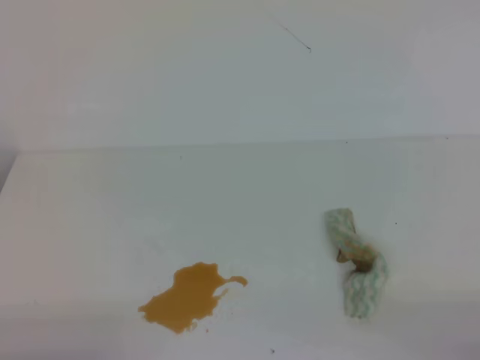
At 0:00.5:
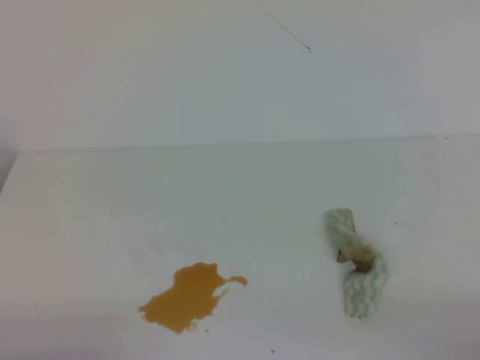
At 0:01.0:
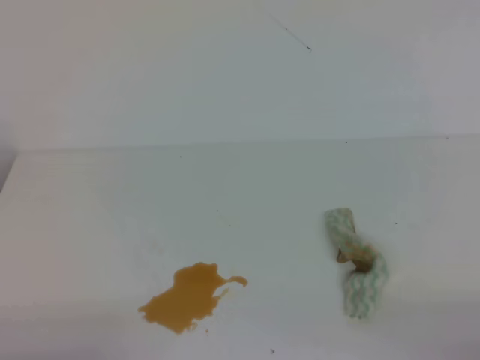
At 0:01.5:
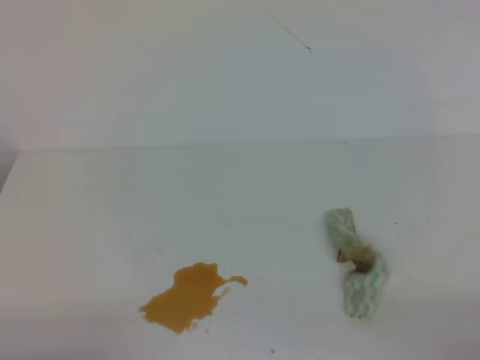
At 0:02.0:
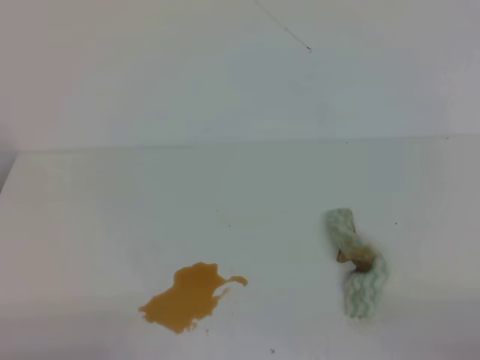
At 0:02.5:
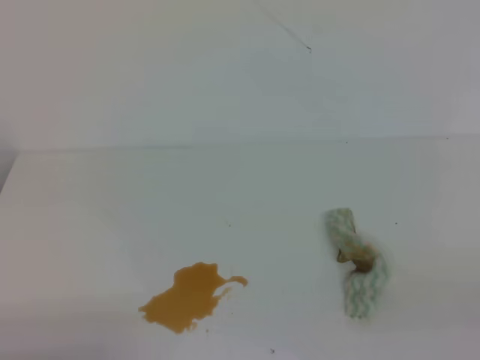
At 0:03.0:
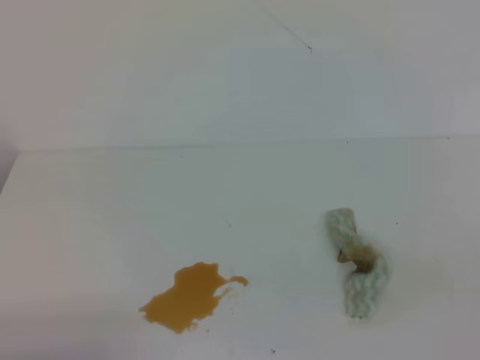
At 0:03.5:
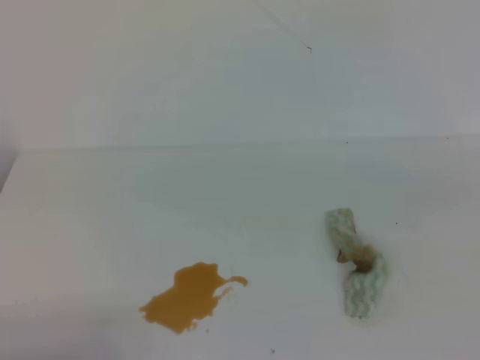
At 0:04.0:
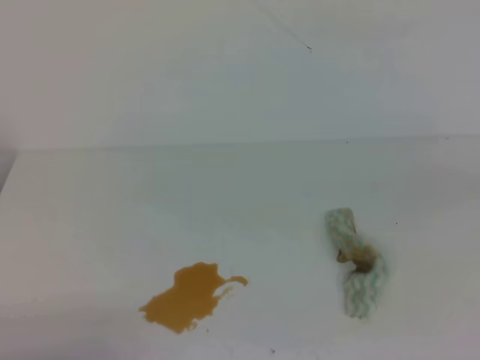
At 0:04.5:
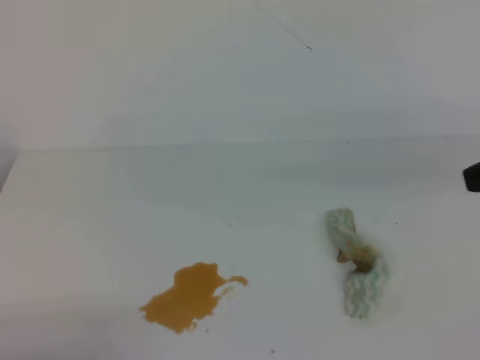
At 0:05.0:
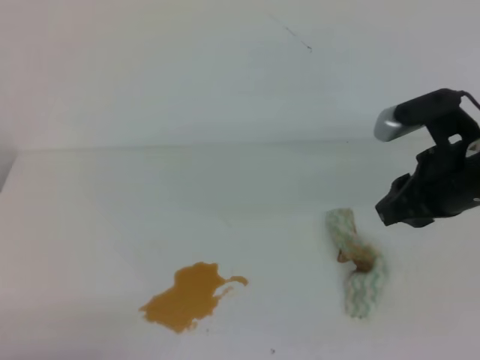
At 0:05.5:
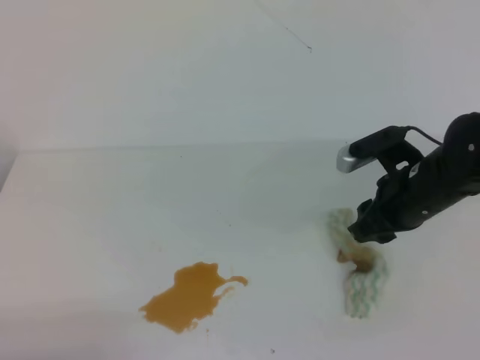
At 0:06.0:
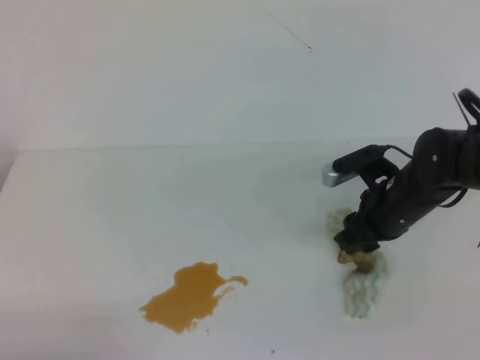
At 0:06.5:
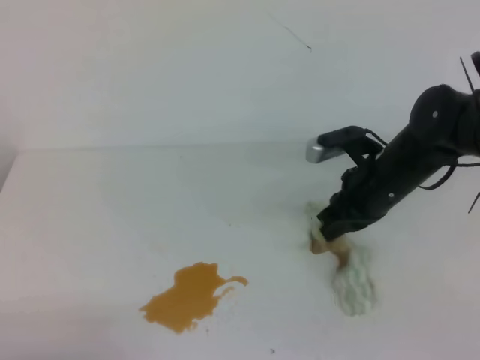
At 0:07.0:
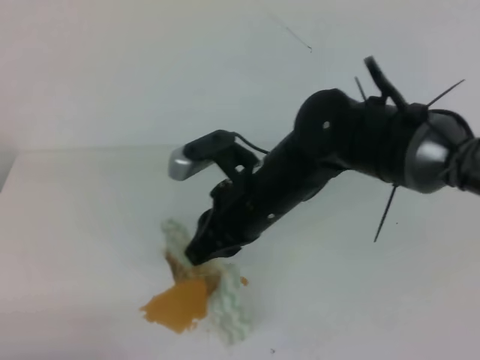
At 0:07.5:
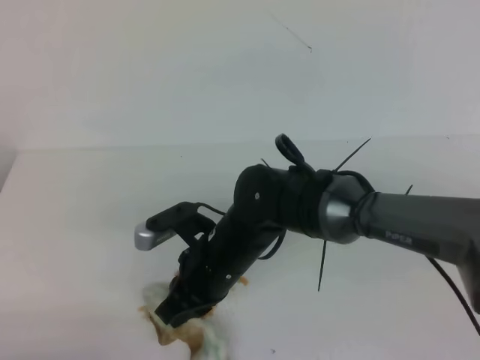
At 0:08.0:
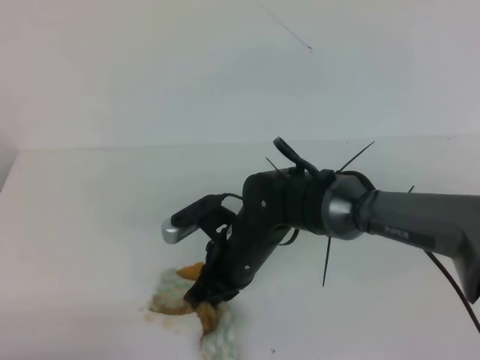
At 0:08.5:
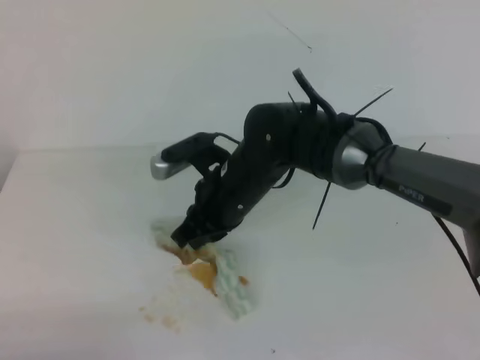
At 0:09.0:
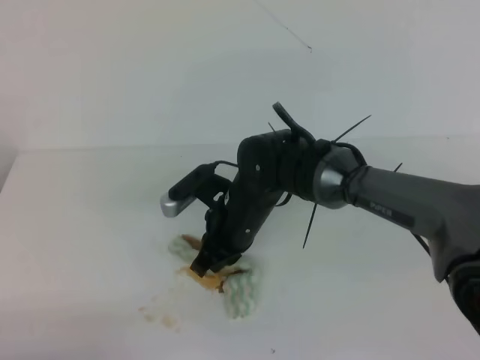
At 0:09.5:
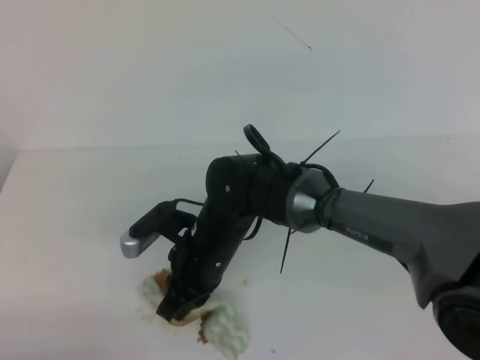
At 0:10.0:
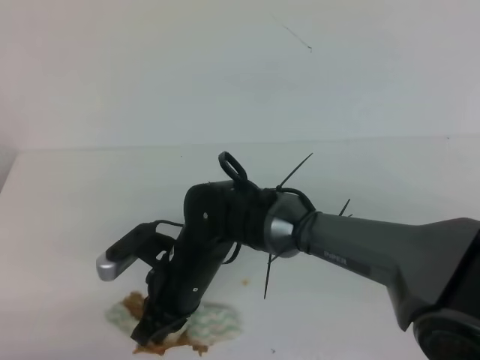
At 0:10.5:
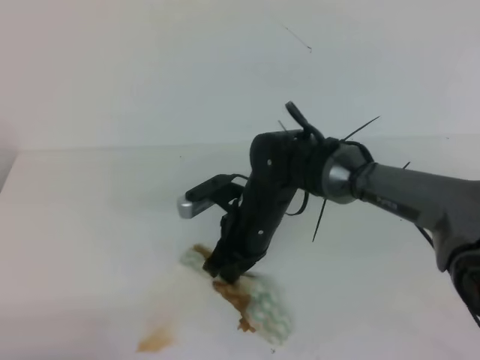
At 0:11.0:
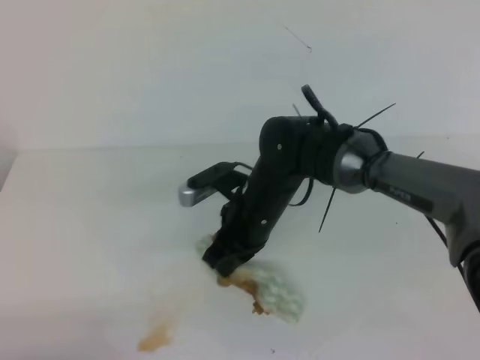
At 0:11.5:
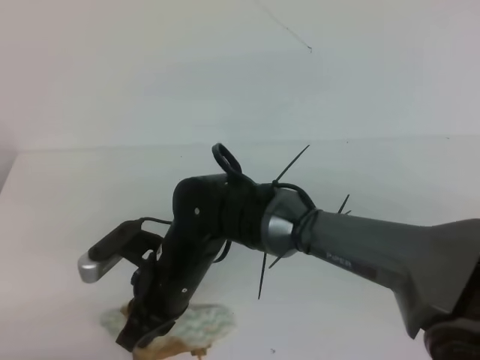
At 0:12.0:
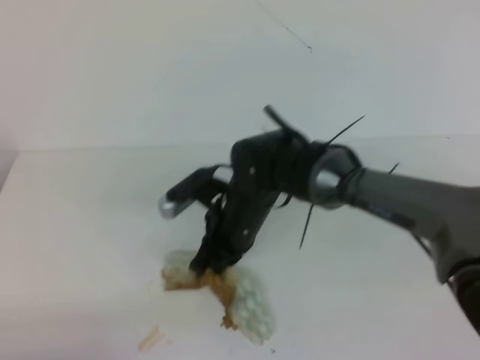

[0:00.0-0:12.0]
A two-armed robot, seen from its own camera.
0:00.0 to 0:02.0: Both grippers stay put.
0:04.0 to 0:06.0: The right gripper is displaced forward, downward and to the left by approximately 35 cm, and opens up.
0:06.0 to 0:08.0: The right gripper goes approximately 20 cm to the left, and closes its fingers.
0:08.0 to 0:10.0: The right gripper travels to the left by about 5 cm.
0:10.0 to 0:12.0: The right gripper swings left and right, some 10 cm each way, with 2 reversals.

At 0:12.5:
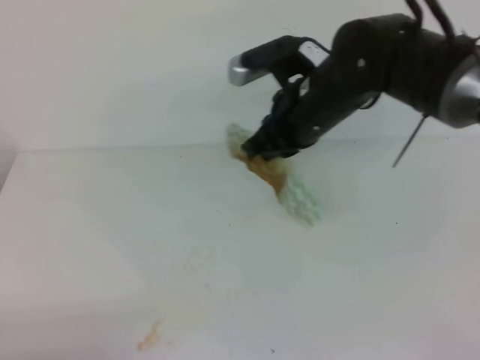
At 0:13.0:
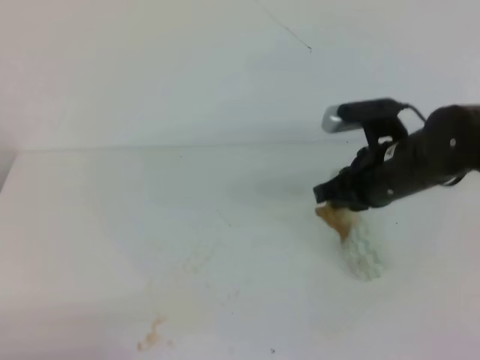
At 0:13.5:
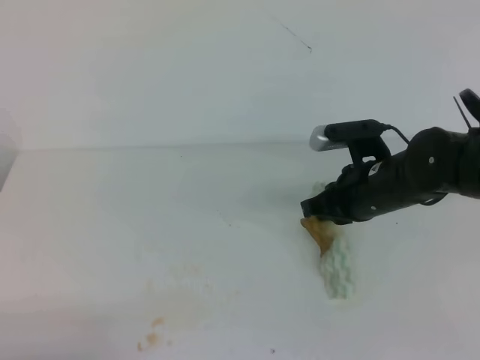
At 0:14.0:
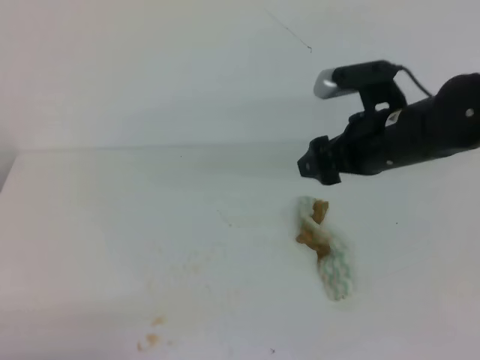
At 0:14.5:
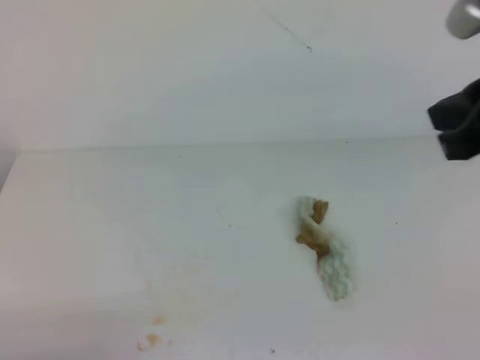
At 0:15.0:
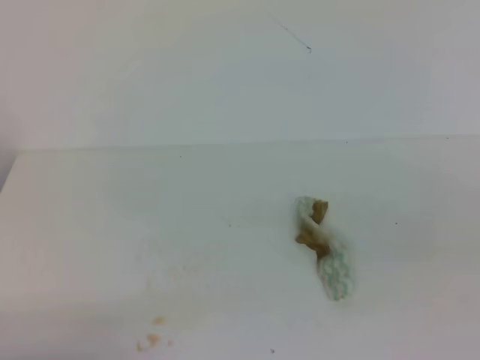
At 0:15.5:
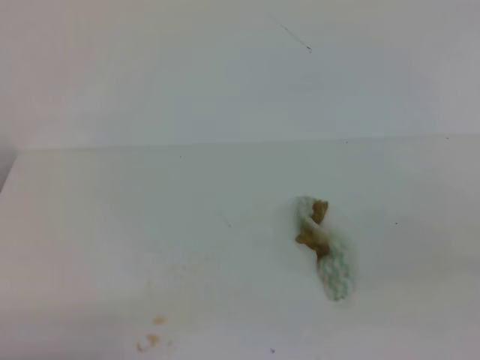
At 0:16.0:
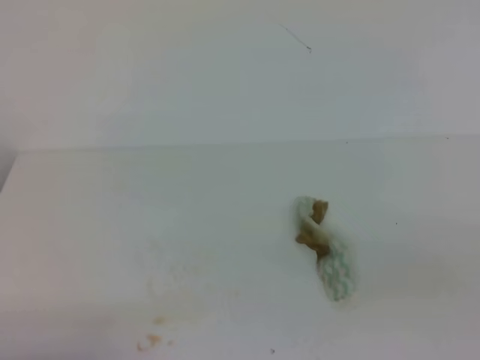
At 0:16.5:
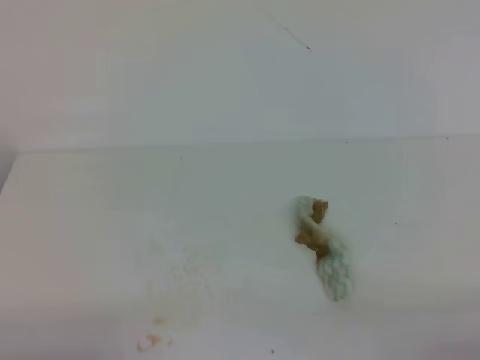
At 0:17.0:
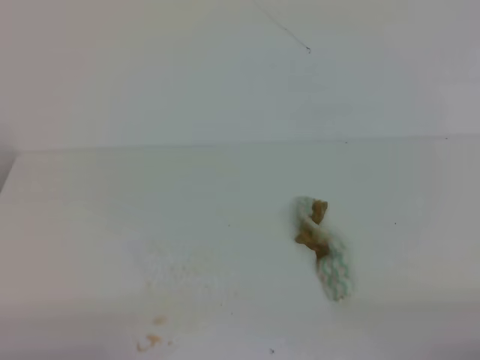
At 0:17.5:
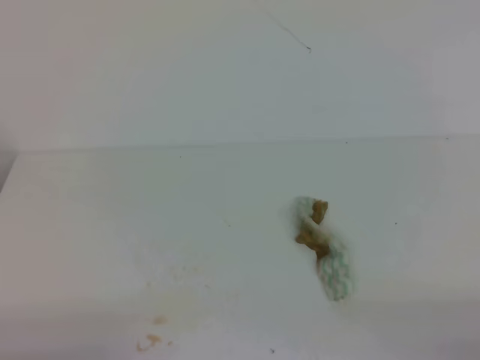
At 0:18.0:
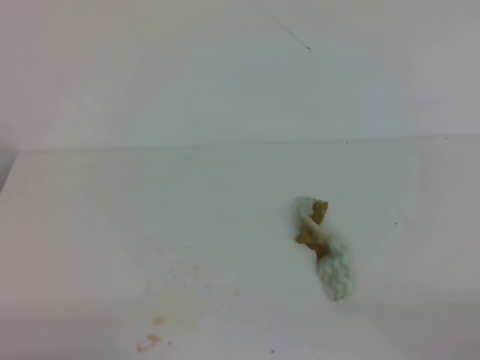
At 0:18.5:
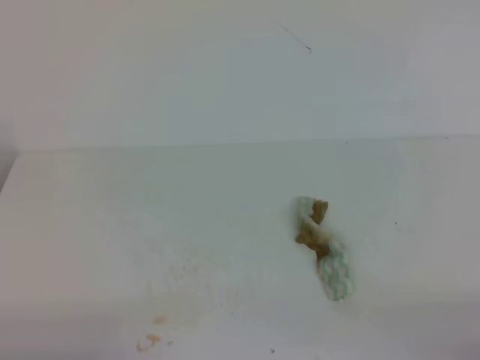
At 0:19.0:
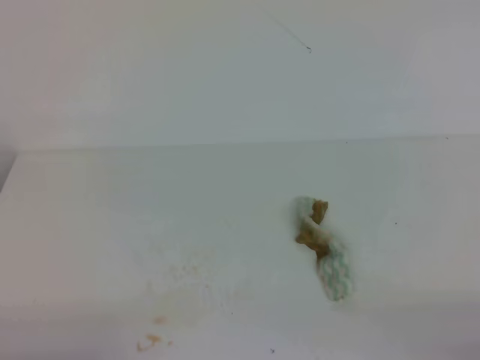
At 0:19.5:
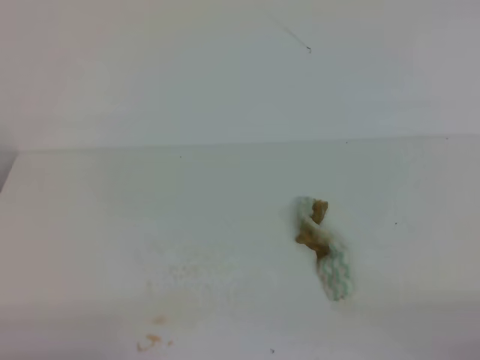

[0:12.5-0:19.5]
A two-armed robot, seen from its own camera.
0:12.5 to 0:14.5: The right gripper heads backward, to the right and upward, covering some 25 cm, and opens and closes again.
0:14.5 to 0:16.0: The right gripper travels backward, downward and to the right by some 20 cm.
0:17.5 to 0:19.5: The two grippers keep their place.
